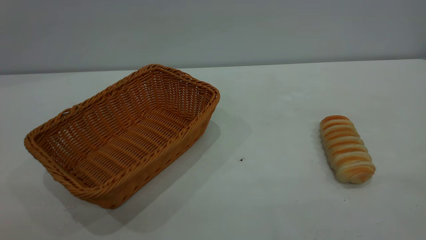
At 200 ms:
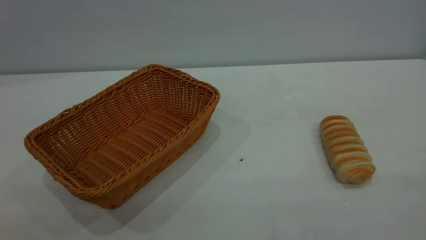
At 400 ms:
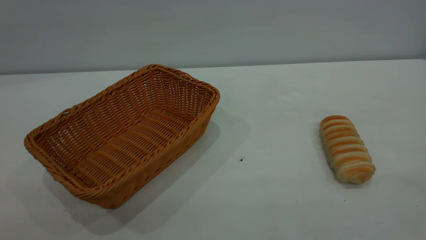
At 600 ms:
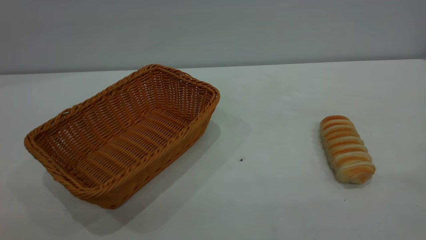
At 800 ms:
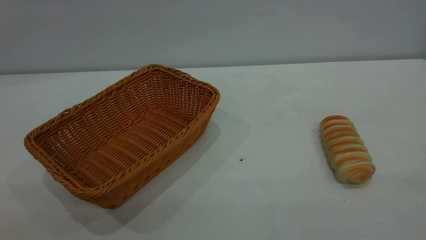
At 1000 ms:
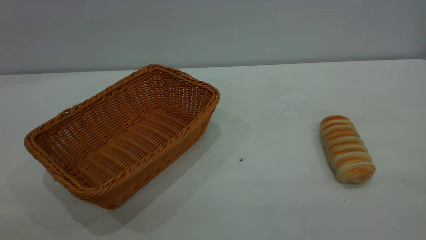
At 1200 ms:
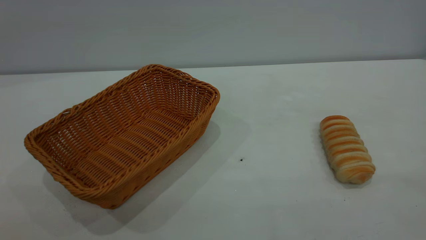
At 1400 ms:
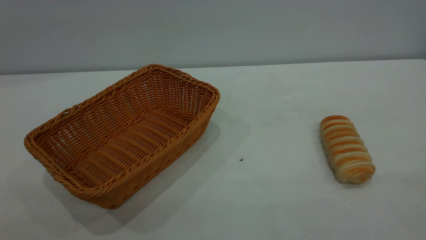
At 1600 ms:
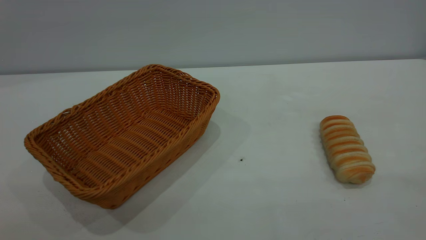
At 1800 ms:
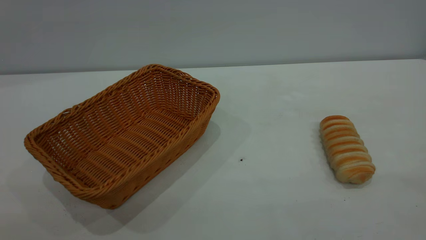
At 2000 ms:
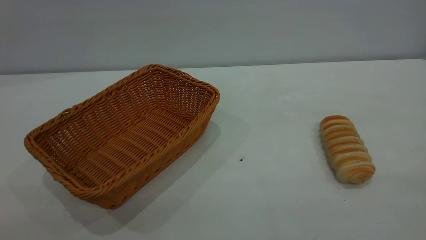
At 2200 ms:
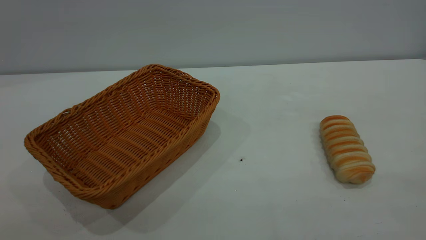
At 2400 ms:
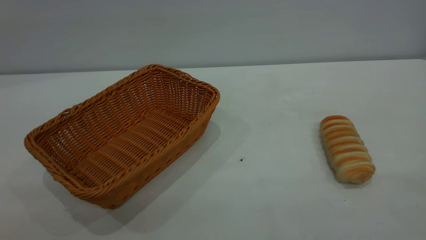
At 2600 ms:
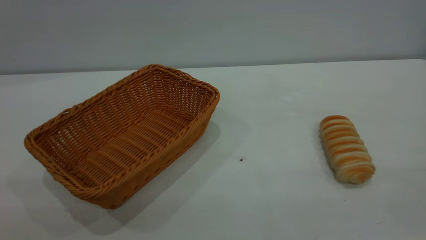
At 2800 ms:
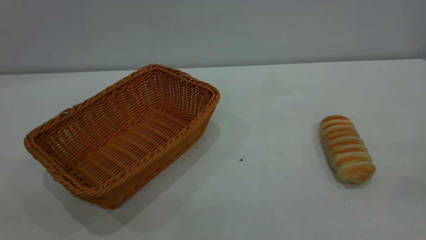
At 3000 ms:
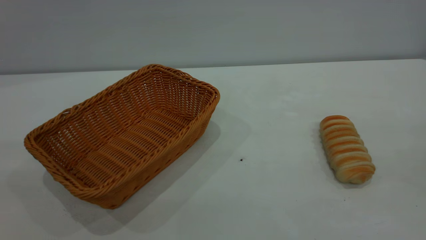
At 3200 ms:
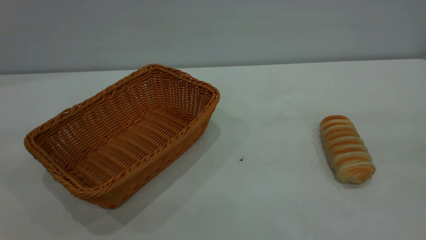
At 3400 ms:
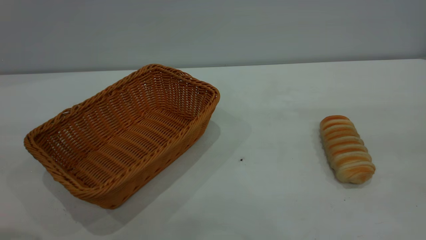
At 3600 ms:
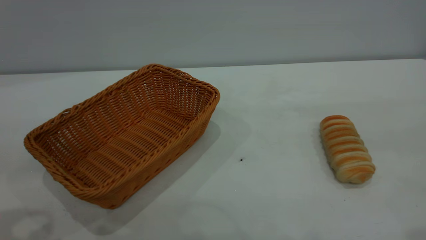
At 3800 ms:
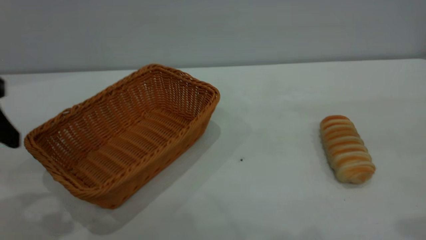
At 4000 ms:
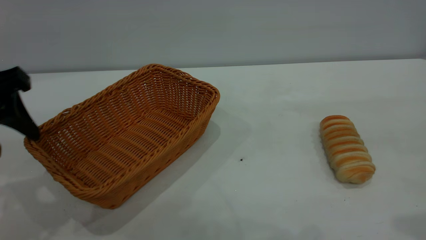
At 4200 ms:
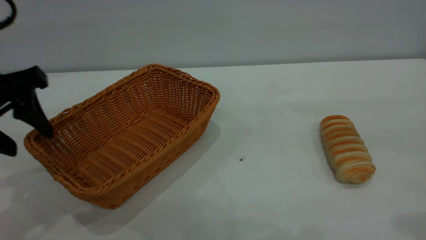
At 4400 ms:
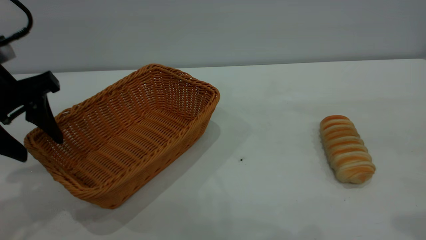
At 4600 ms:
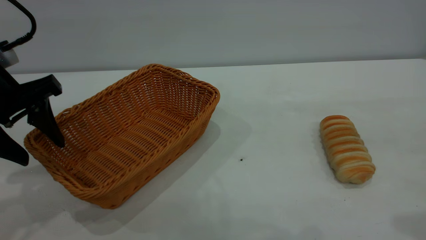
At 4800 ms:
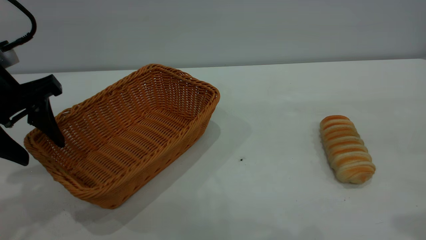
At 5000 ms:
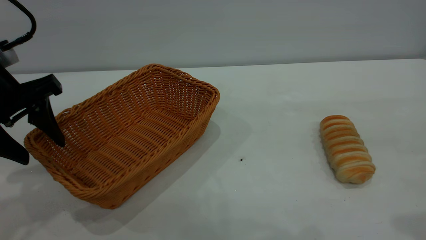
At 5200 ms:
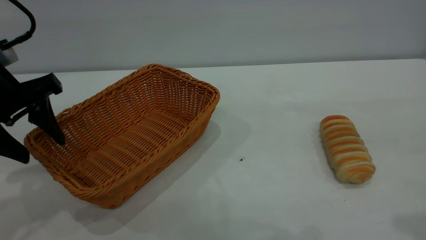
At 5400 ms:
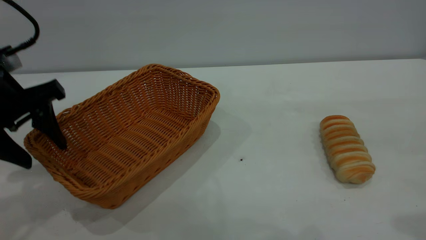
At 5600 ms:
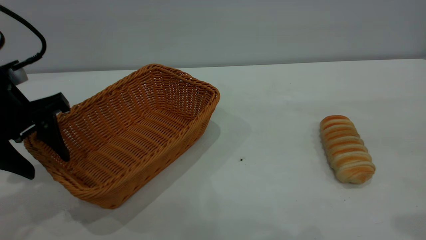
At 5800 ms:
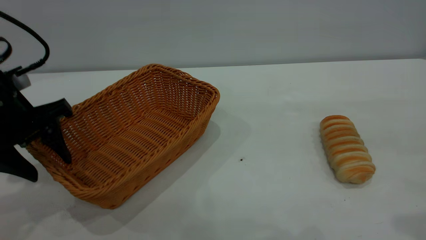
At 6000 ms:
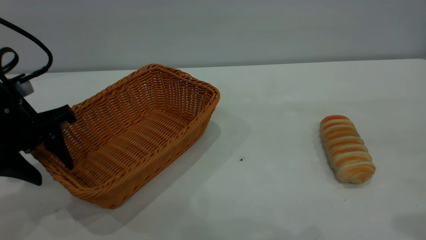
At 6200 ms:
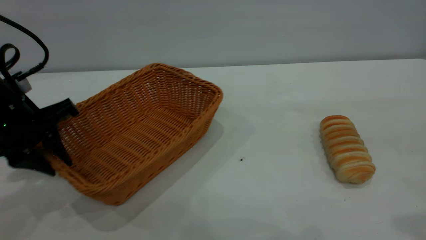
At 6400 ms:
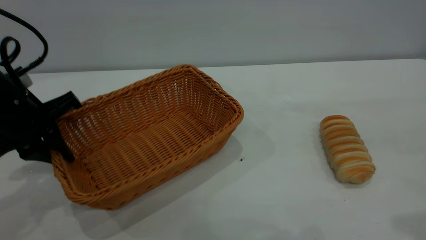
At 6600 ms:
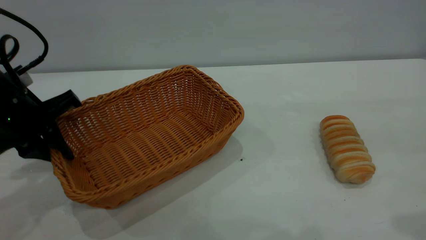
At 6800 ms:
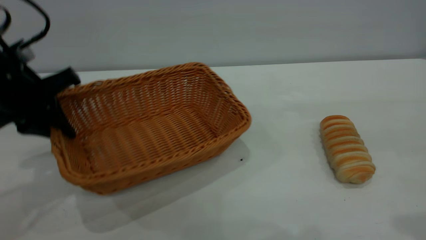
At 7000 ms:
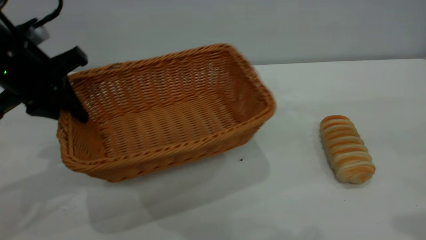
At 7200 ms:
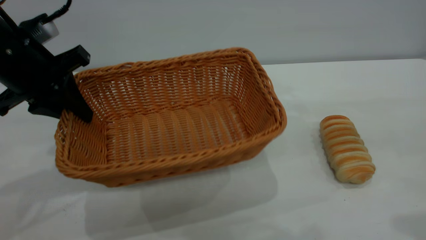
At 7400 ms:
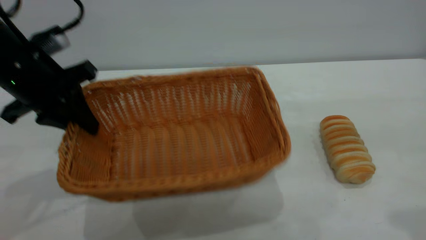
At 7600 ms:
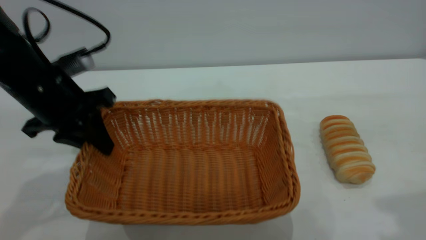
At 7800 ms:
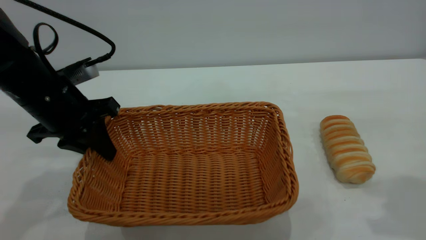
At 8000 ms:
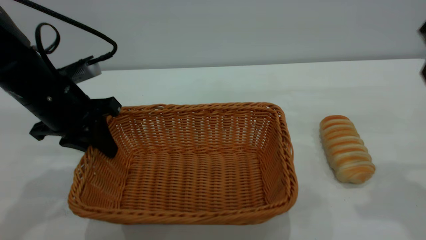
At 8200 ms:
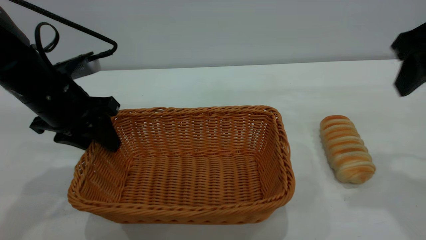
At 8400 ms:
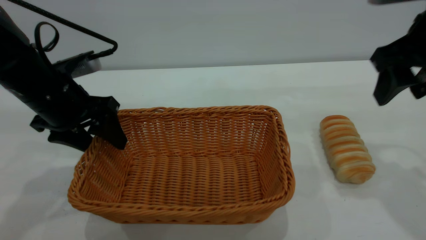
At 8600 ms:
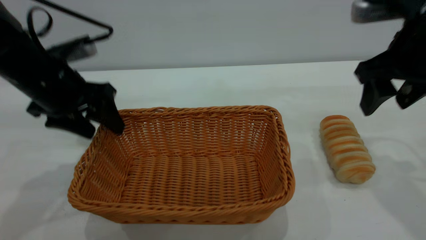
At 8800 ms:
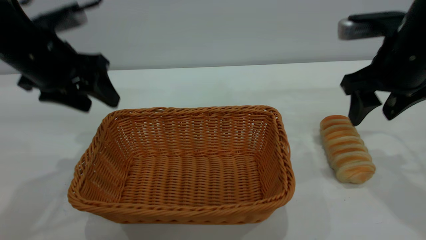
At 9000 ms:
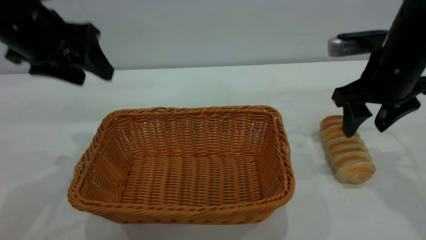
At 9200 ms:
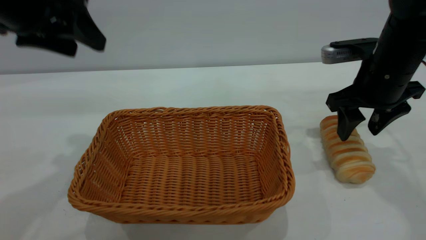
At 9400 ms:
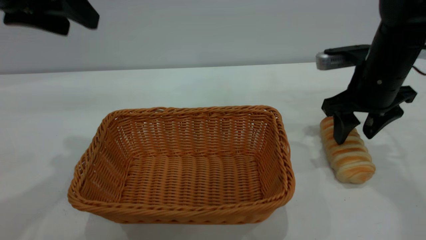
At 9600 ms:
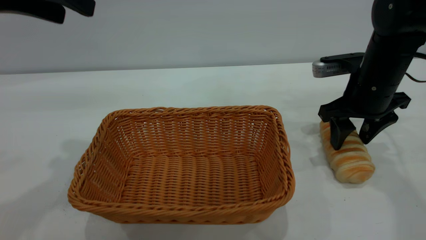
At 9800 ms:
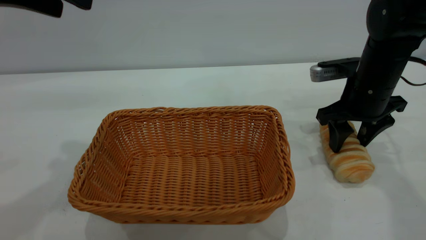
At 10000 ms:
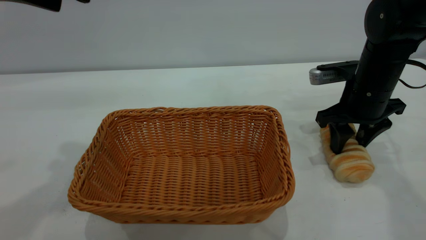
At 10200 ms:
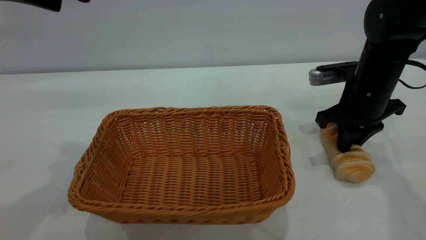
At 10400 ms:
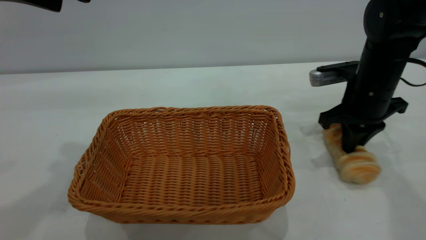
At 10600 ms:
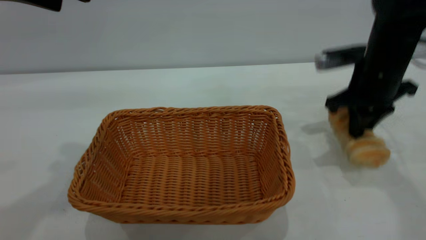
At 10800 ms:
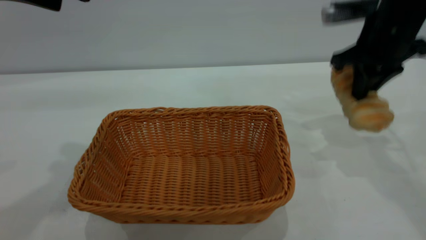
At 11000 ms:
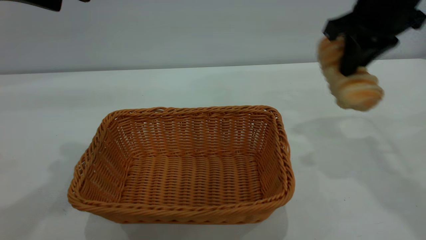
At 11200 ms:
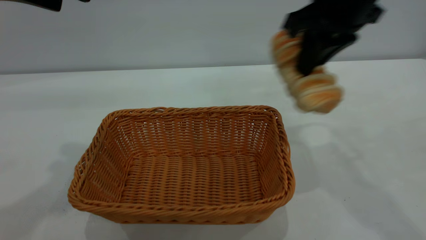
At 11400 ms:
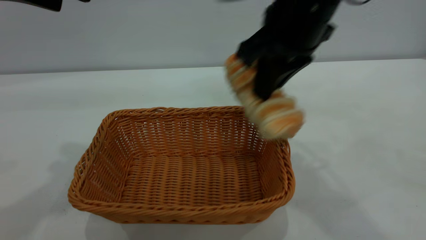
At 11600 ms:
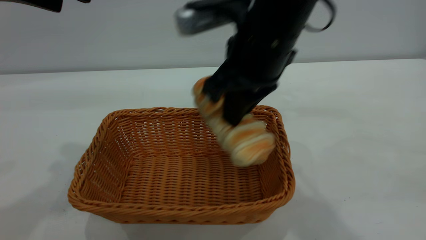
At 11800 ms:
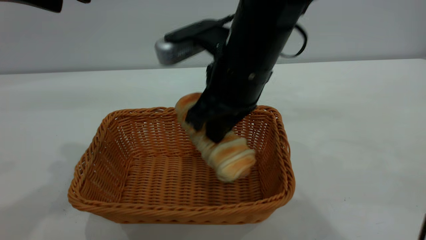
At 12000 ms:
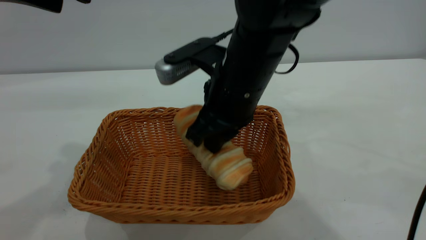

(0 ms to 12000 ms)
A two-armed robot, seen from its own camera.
Task of the whole recording: One hand grasps the yellow basket and places it in the middle of the table, while the other hand picks up the long bread and puts it into the yellow basket.
Step, 0 ms - 8800 ms: Move the basket to the center of view.
0 ms - 1600 ms: The two grippers keep their place.
3000 ms - 4400 ms: The left gripper moves forward and downward, about 25 cm.
4400 ms - 6000 ms: The left gripper heads downward, covering about 5 cm.
6000 ms - 7600 ms: The left gripper changes place by about 5 cm, and closes its fingers.
7600 ms - 9000 ms: The right gripper is displaced forward and downward by some 20 cm. The left gripper heads upward, covering some 10 cm, and opens up.
9000 ms - 10400 ms: The left gripper is displaced upward by about 10 cm, while the right gripper changes place by some 5 cm, and closes its fingers.
10400 ms - 12000 ms: The right gripper moves to the left, roughly 20 cm.

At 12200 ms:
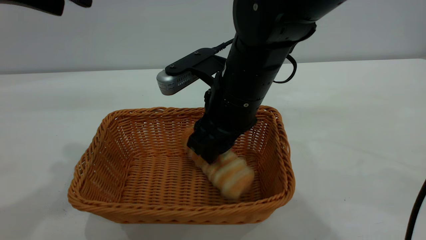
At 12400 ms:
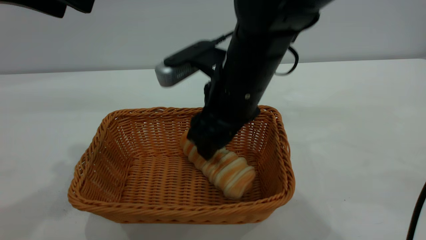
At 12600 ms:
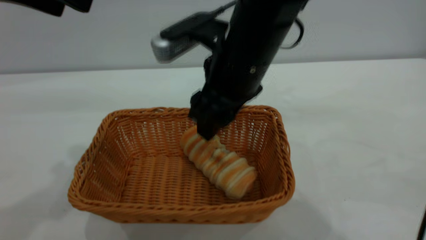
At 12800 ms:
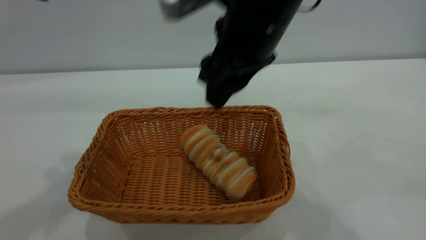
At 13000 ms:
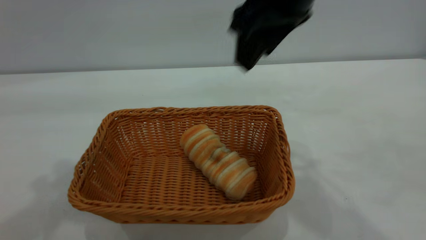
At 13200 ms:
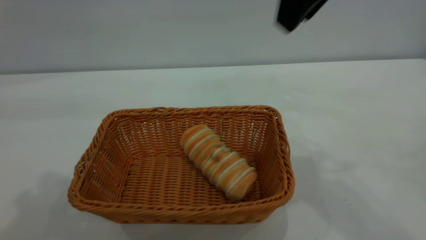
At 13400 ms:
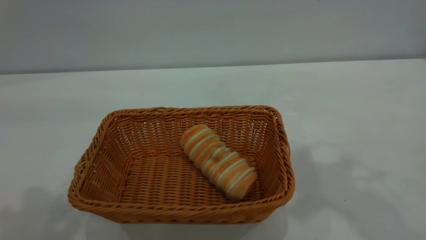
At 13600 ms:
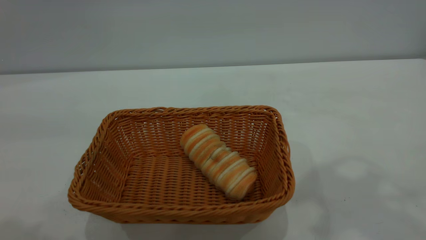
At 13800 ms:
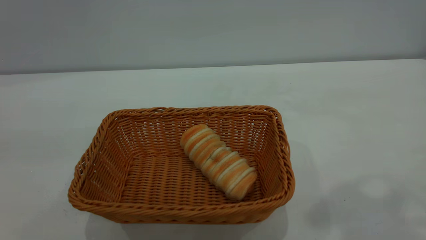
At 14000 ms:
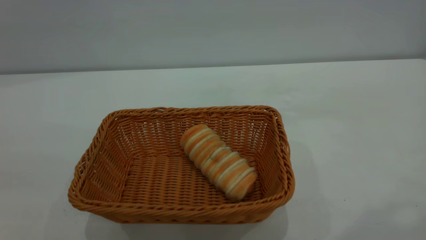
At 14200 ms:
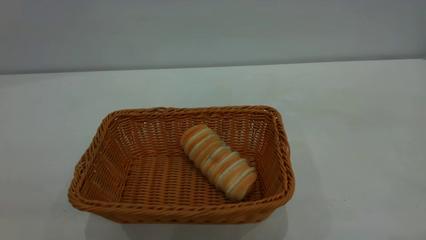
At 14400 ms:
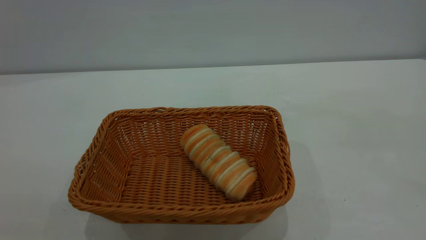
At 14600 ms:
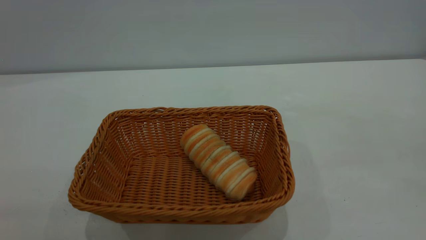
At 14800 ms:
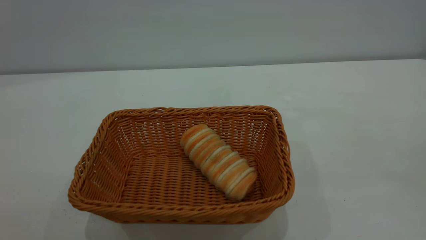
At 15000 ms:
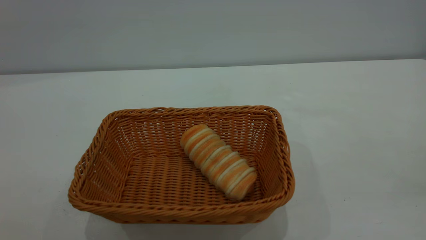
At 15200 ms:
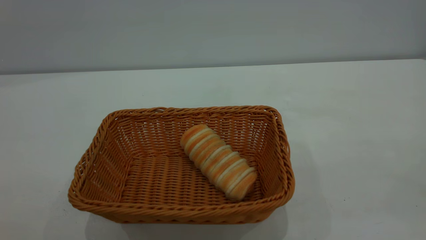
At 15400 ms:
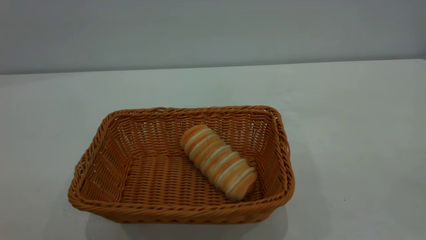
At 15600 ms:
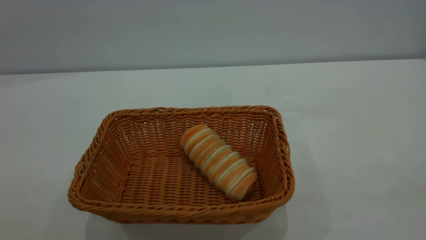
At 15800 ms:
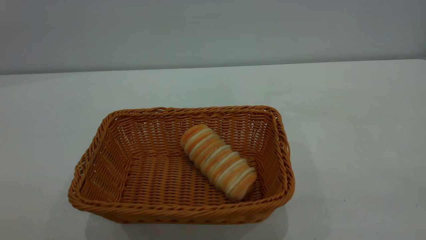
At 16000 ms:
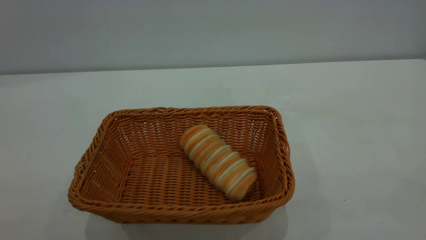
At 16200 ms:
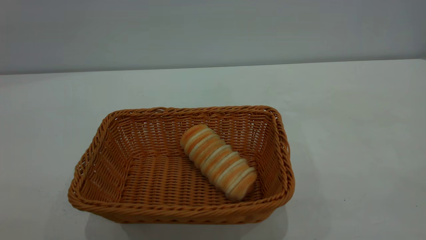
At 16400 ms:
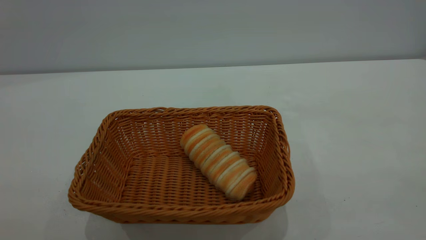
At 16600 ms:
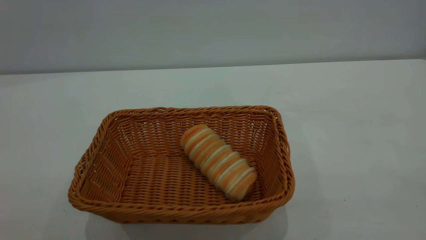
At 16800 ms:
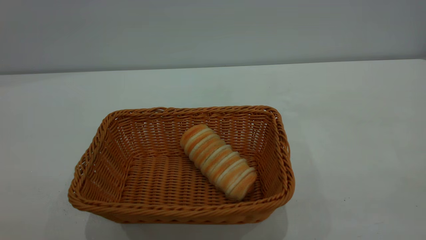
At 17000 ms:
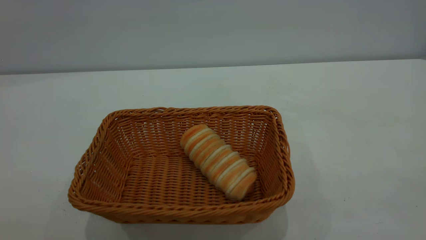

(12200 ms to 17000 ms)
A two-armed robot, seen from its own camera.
Task of the whole recording: One hand grasps the yellow basket and places it in the middle of the table, while the other hand picks up the long bread and puts it into the yellow basket.
12200 ms - 13800 ms: The left gripper moves backward, some 20 cm, while the right gripper is displaced upward and to the right by some 35 cm, and closes.
